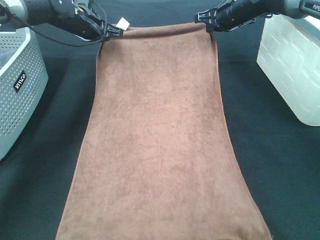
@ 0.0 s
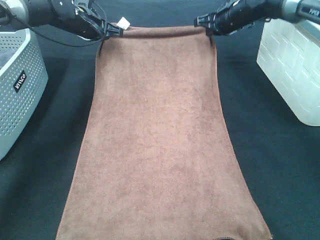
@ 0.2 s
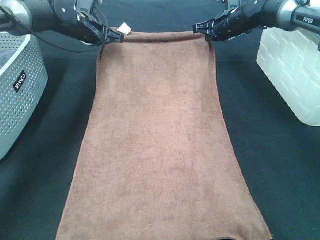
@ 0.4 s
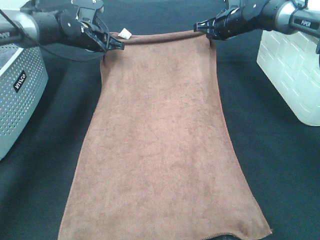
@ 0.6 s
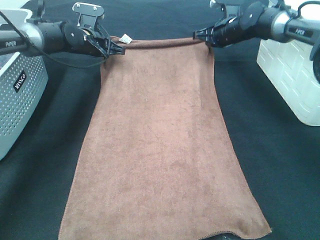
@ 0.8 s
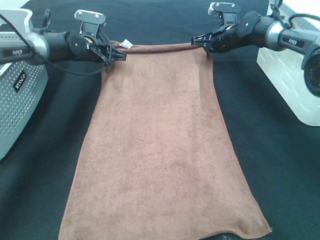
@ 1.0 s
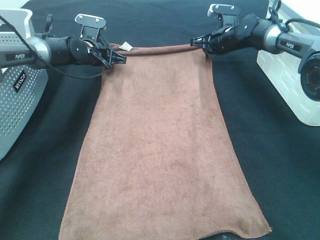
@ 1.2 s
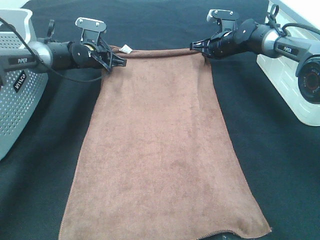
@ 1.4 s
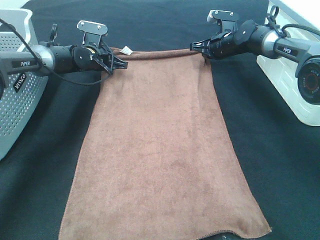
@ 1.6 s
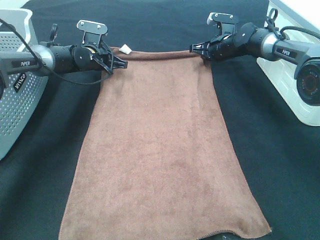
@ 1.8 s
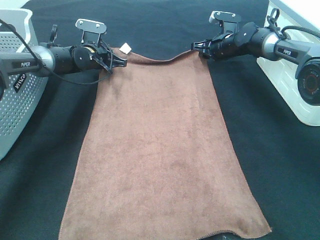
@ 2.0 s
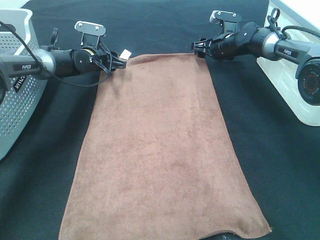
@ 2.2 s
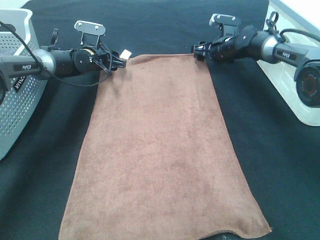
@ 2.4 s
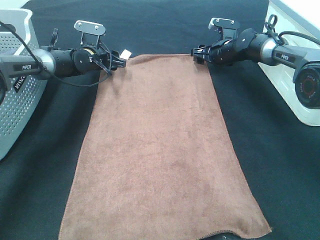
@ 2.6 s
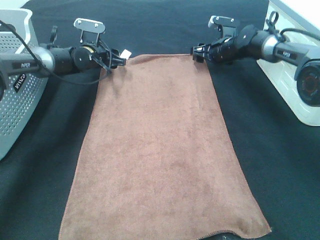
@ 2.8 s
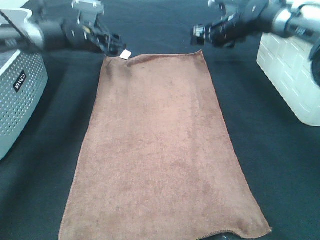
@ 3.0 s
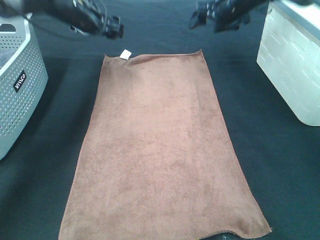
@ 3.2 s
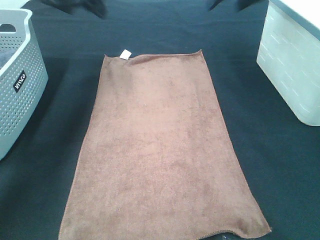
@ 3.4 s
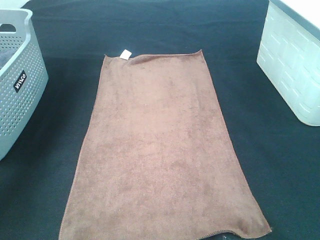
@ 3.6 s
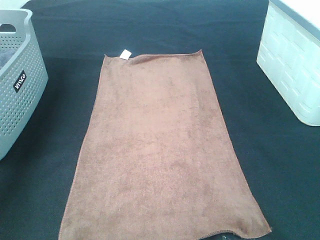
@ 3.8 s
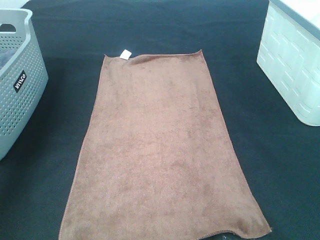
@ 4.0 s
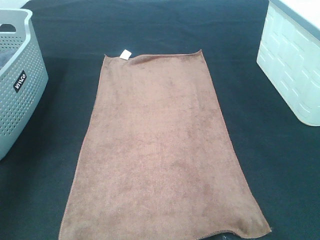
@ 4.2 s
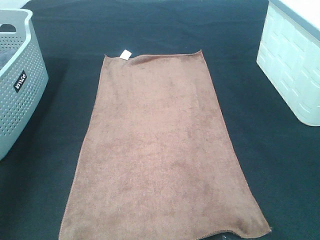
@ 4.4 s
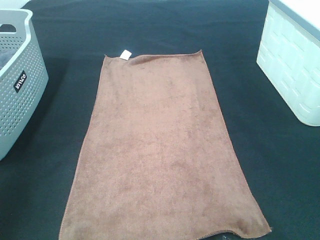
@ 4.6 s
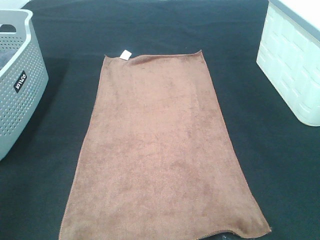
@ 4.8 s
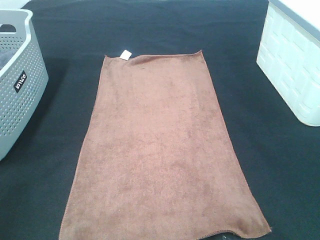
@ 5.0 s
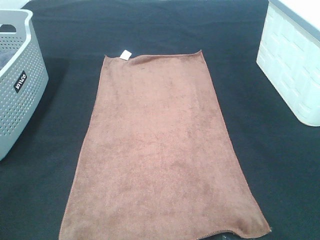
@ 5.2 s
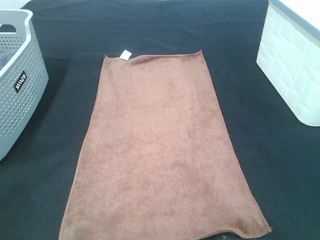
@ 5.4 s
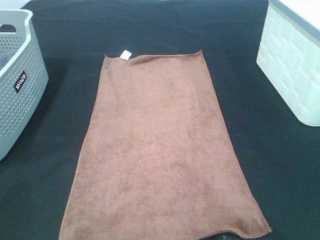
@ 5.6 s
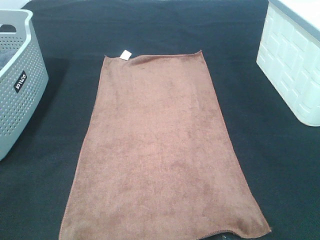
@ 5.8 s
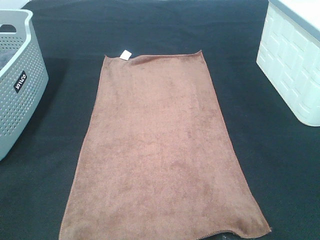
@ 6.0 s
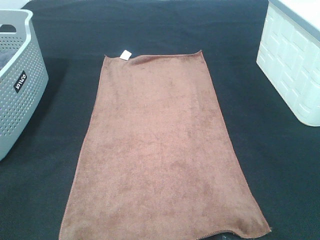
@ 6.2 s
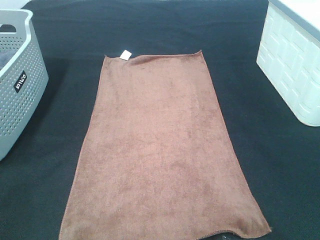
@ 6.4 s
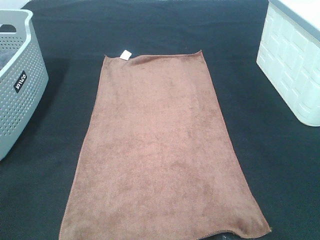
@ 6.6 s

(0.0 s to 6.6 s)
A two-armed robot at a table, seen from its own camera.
Task of the whole recording: Remove the towel and place it.
0.0 s - 1.6 s: The grippers both shift downward by about 10 cm.
1.6 s - 3.2 s: The two grippers go approximately 15 cm upward. The right gripper opens. The left gripper opens.
3.2 s - 5.0 s: The two grippers go approximately 50 cm backward.
